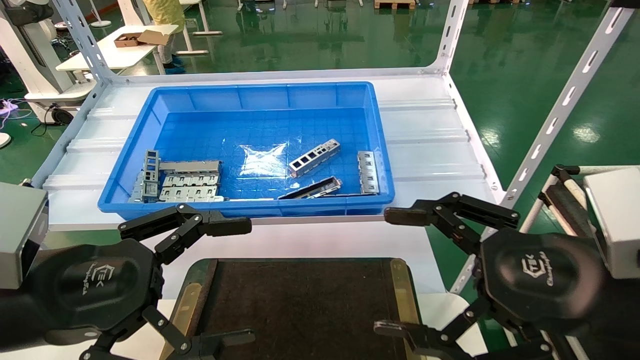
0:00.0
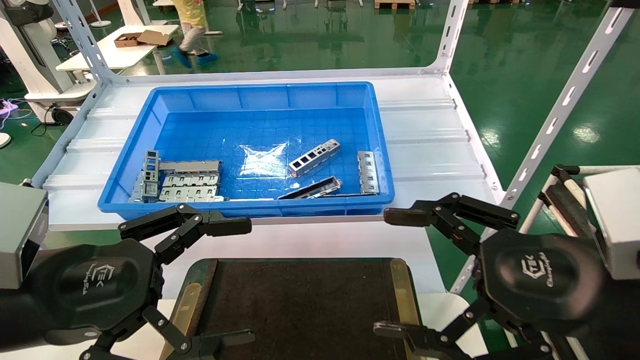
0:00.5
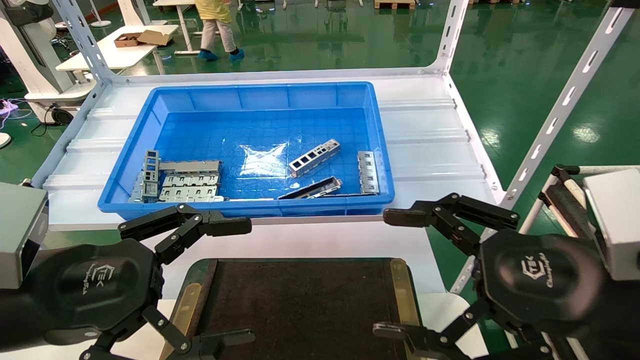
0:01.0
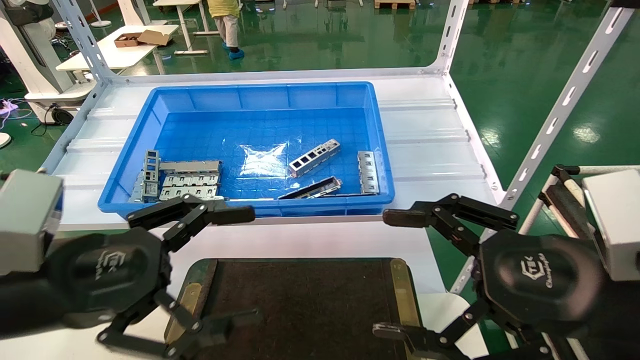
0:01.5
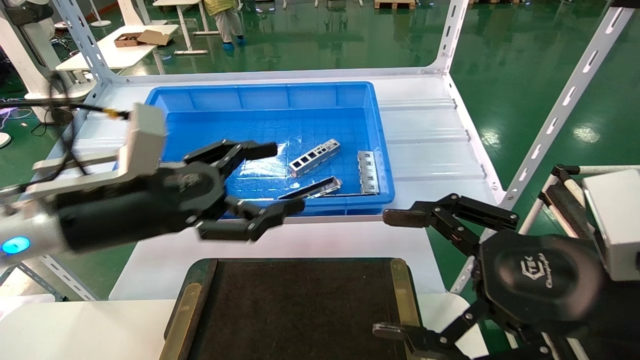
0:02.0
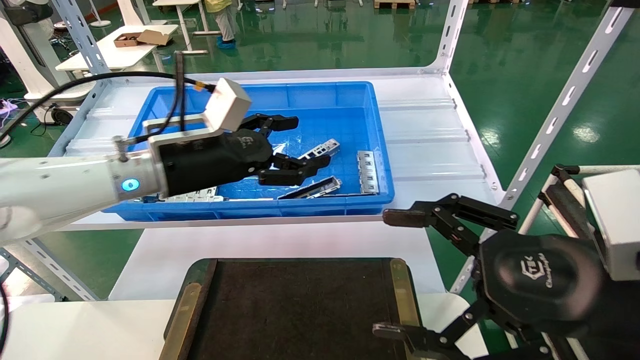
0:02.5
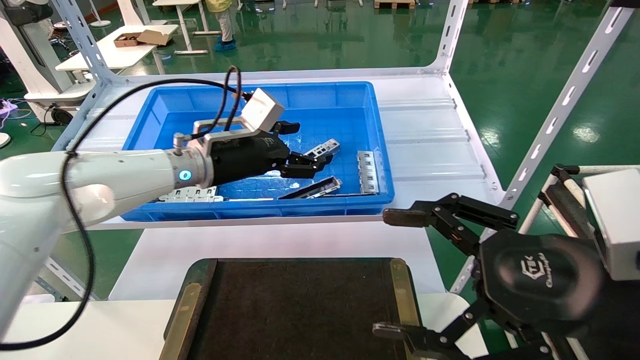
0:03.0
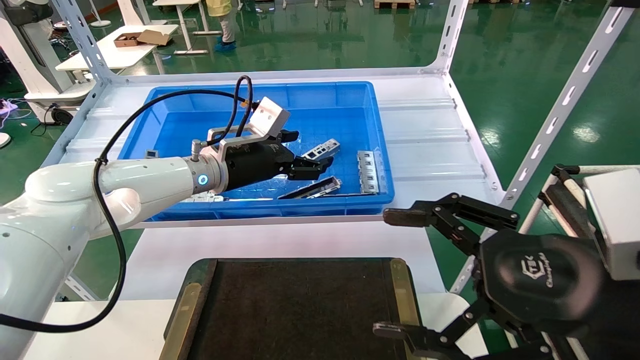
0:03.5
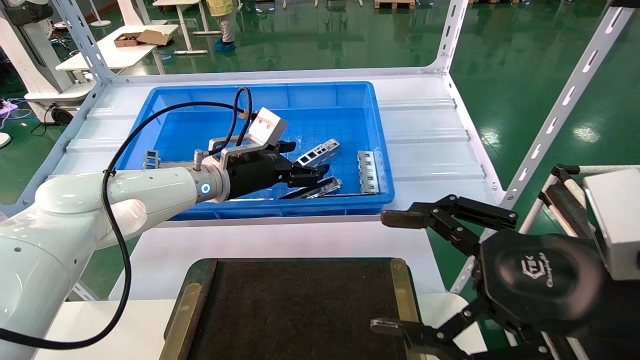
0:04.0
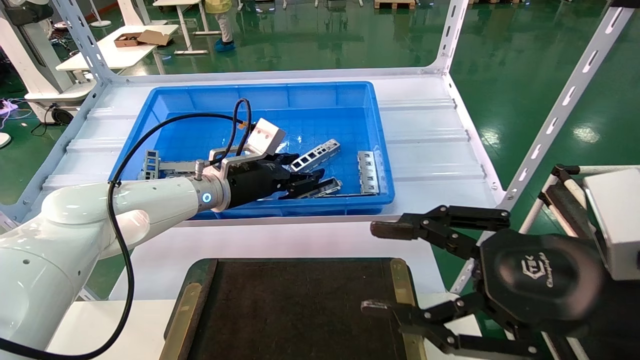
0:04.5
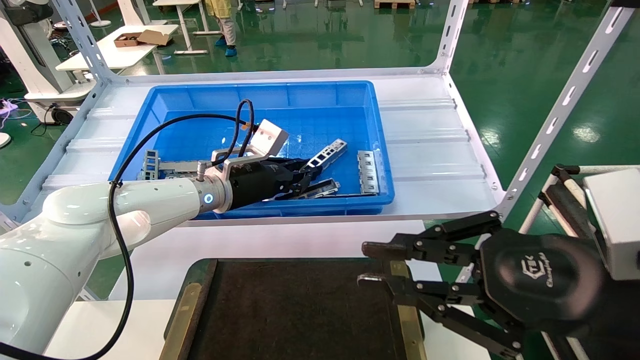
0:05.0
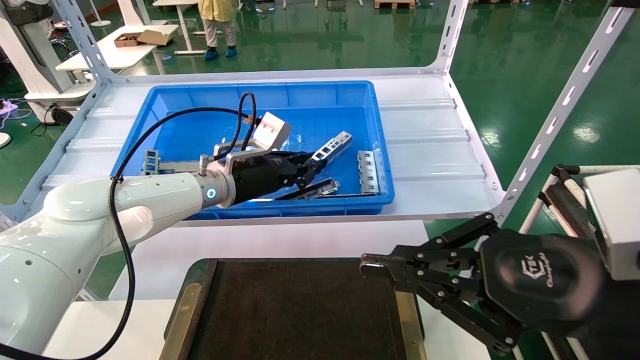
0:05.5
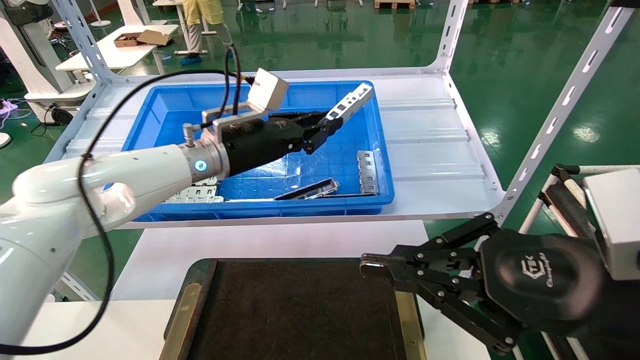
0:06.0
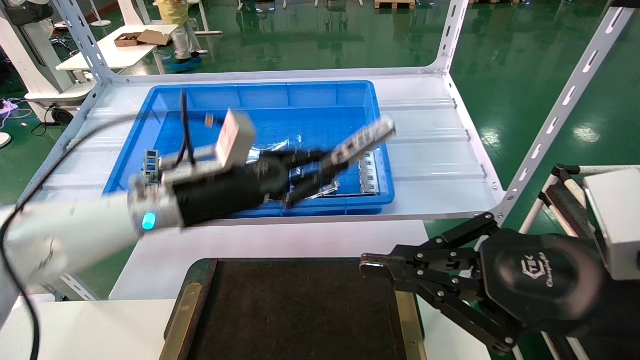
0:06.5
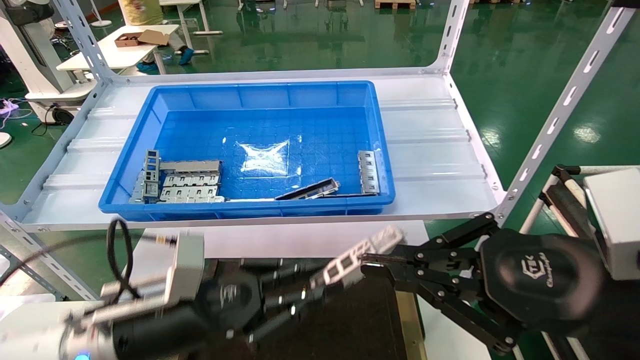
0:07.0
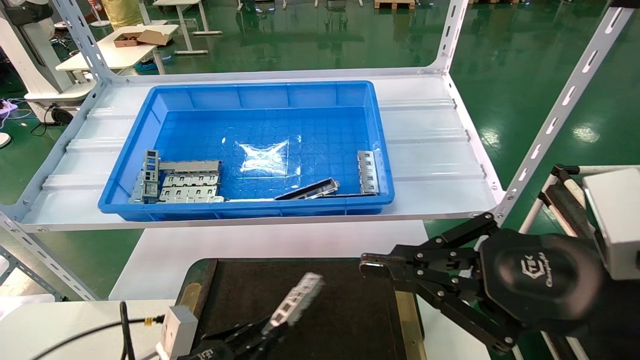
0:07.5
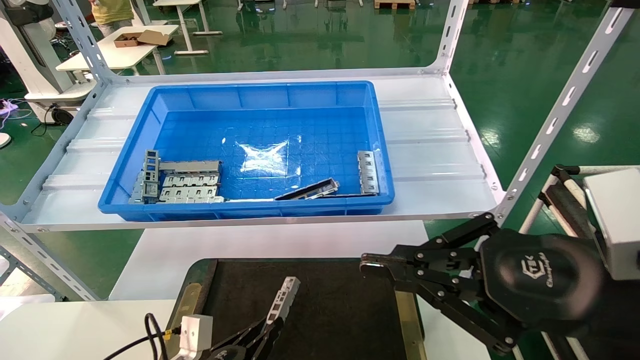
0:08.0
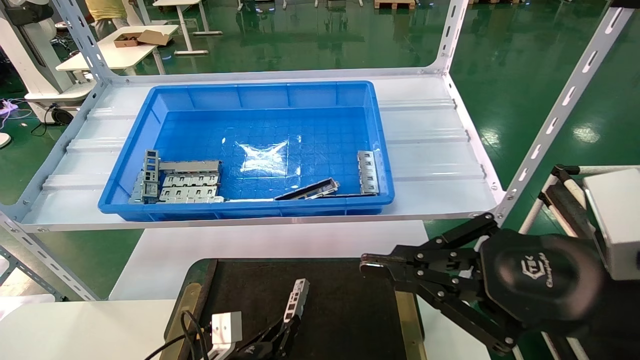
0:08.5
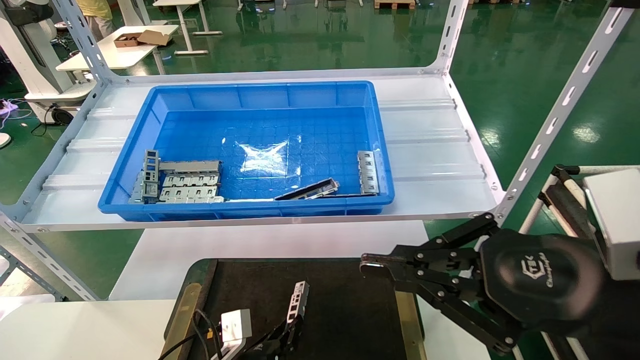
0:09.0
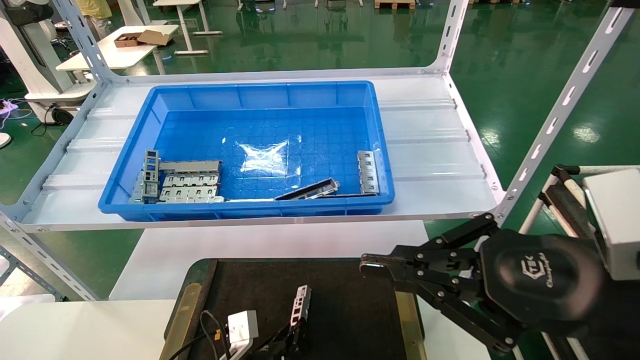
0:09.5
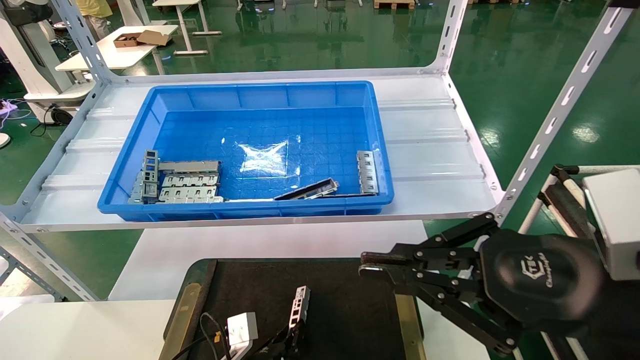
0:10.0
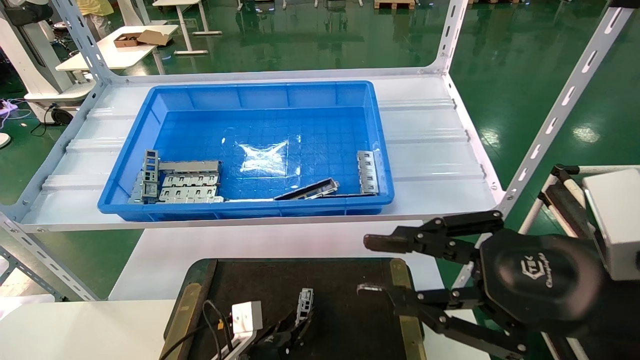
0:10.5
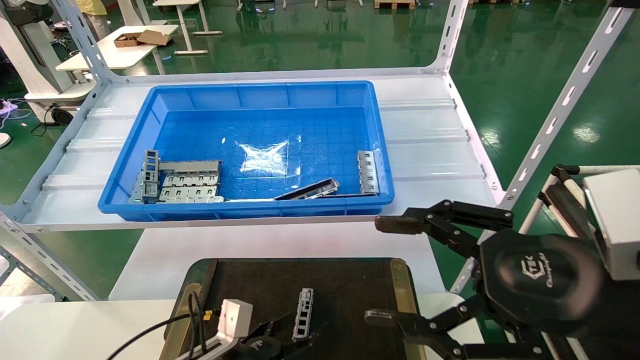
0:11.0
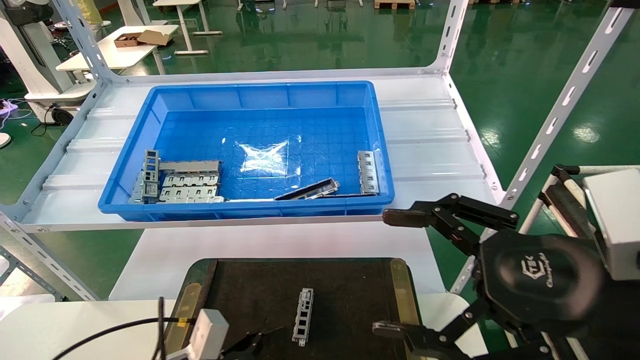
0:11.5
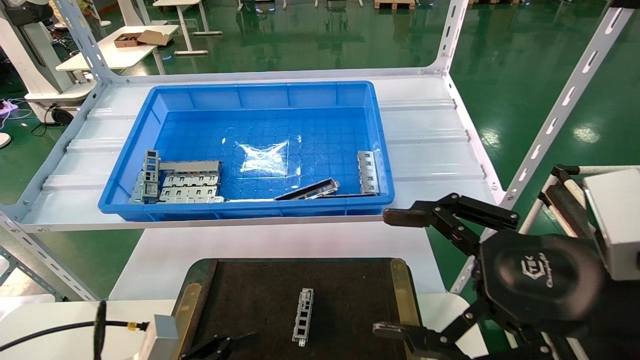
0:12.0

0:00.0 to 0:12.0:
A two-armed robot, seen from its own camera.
Task of the whole recording: Grasp the part with one hand and place it on the black container.
Step, 0:01.5 to 0:06.0: Pick up the front USB bracket from the feeding area.
Step, 0:06.5 to 0:10.0: Place the front USB bracket into the box.
0:00.0 to 0:02.0: The left gripper moves forward, approximately 10 cm.
0:02.0 to 0:04.0: The left gripper travels forward by roughly 20 cm.
0:04.0 to 0:06.0: The right gripper closes; the left gripper shifts by roughly 5 cm, and closes up.
0:06.0 to 0:08.0: The left gripper travels downward and backward by roughly 35 cm.
0:08.0 to 0:10.0: The left gripper goes approximately 5 cm to the right.
0:10.0 to 0:12.0: The left gripper goes roughly 20 cm to the left, upward and backward, and opens; the right gripper opens up.
